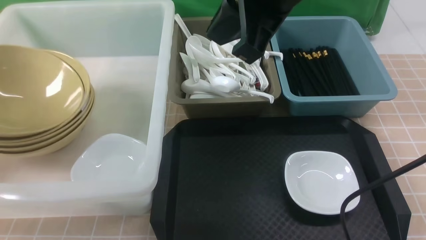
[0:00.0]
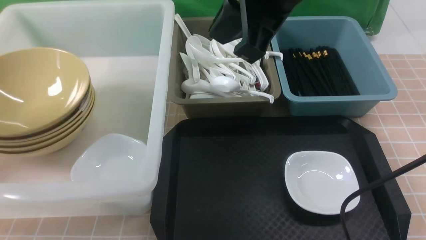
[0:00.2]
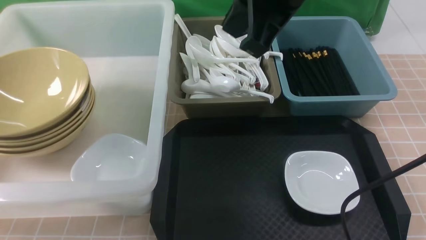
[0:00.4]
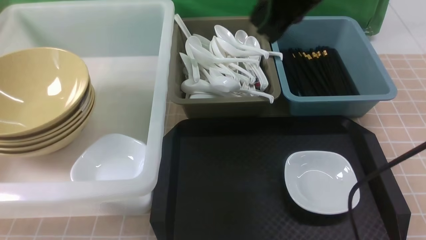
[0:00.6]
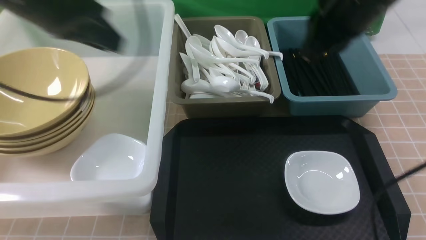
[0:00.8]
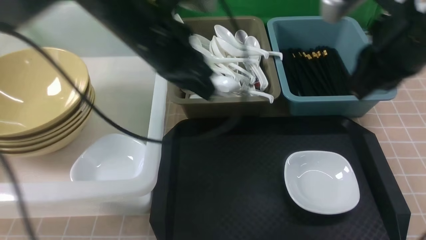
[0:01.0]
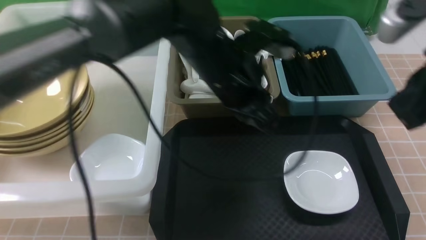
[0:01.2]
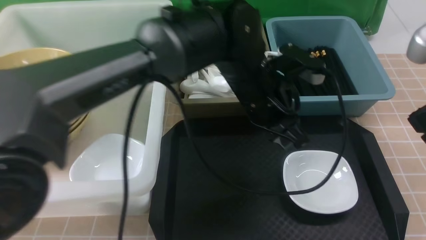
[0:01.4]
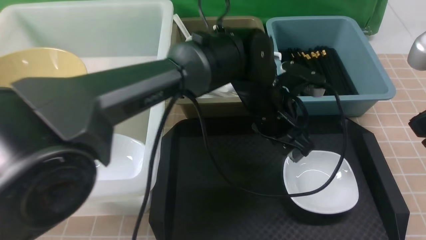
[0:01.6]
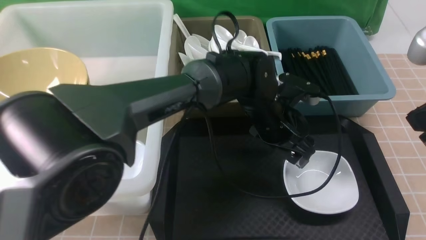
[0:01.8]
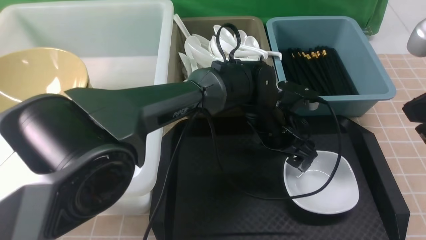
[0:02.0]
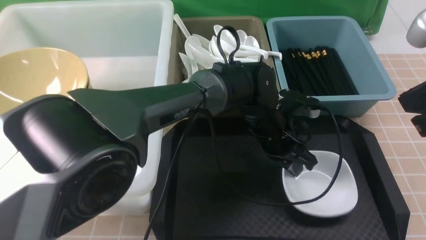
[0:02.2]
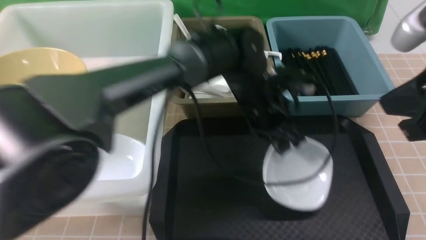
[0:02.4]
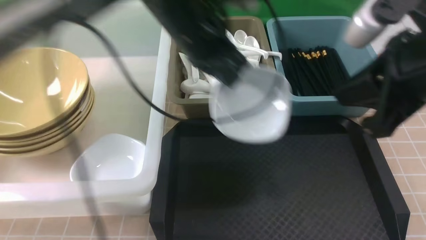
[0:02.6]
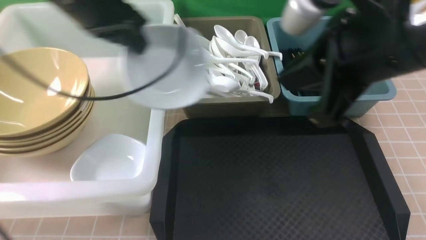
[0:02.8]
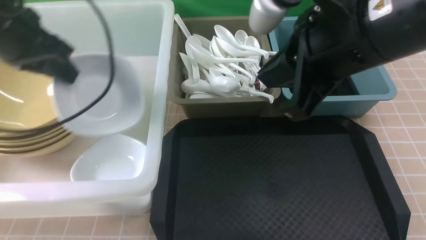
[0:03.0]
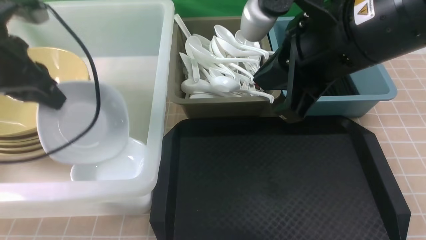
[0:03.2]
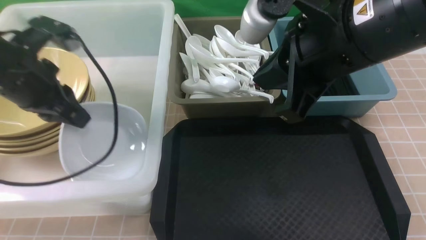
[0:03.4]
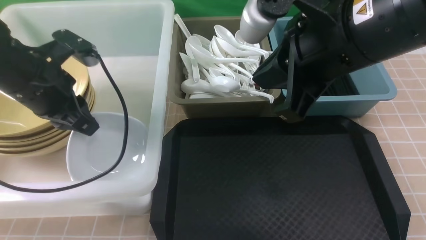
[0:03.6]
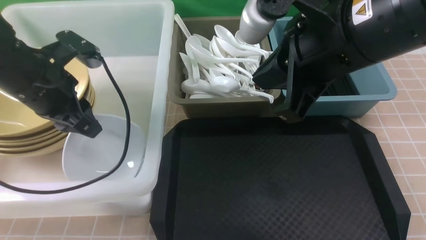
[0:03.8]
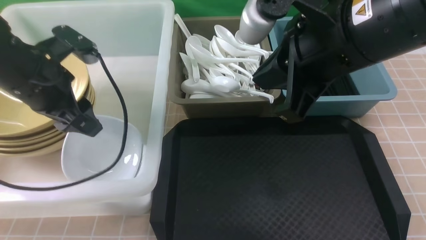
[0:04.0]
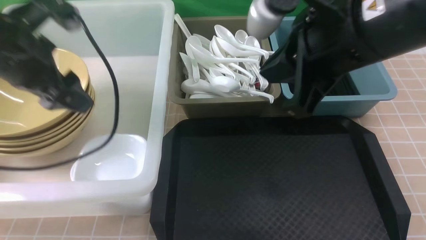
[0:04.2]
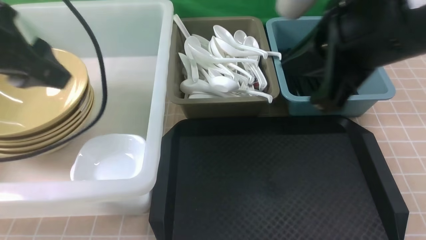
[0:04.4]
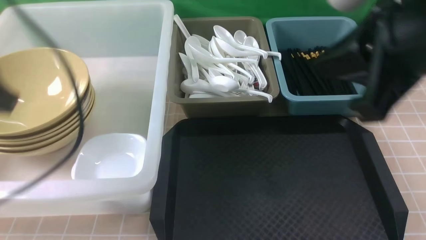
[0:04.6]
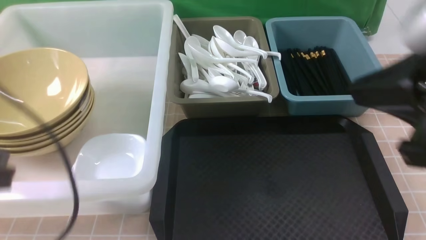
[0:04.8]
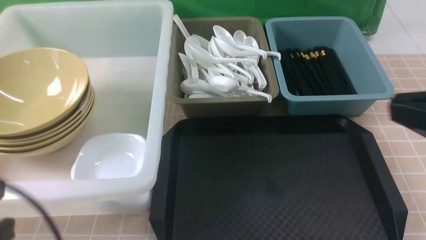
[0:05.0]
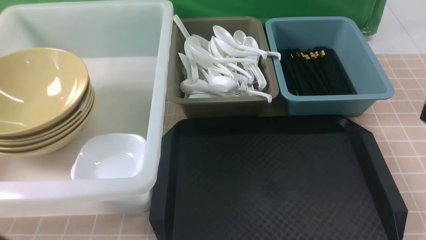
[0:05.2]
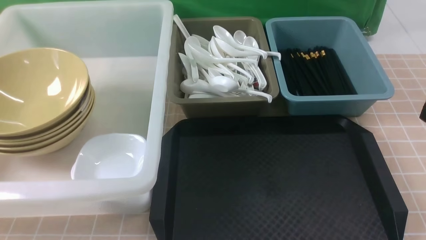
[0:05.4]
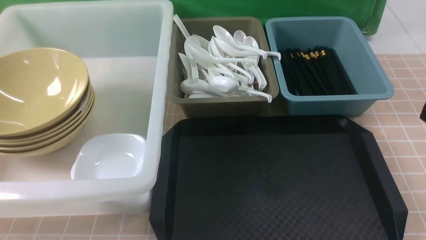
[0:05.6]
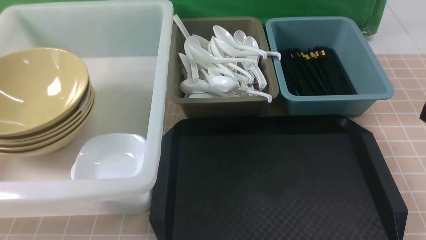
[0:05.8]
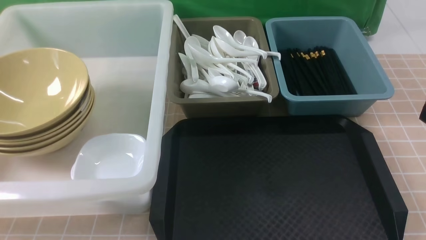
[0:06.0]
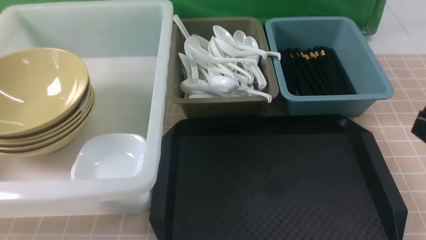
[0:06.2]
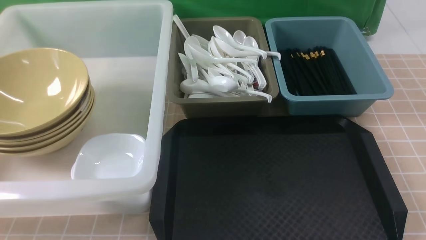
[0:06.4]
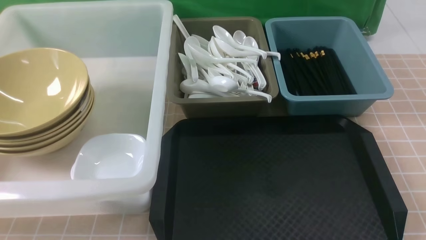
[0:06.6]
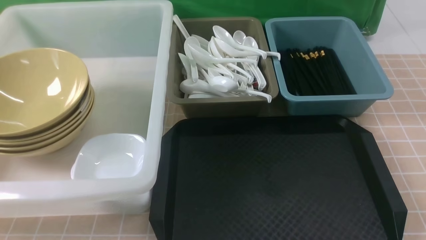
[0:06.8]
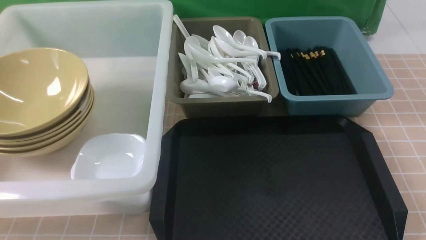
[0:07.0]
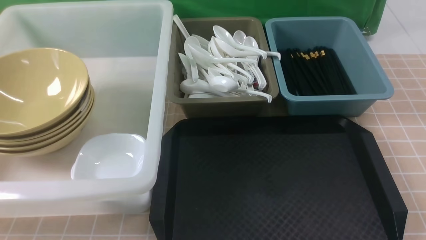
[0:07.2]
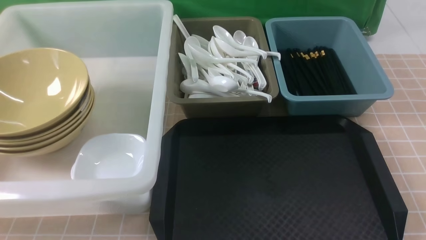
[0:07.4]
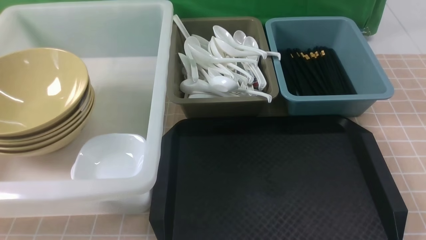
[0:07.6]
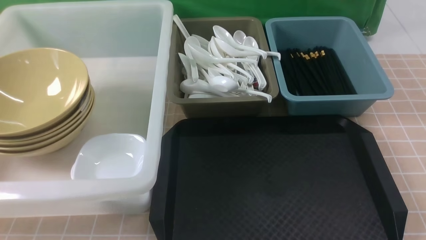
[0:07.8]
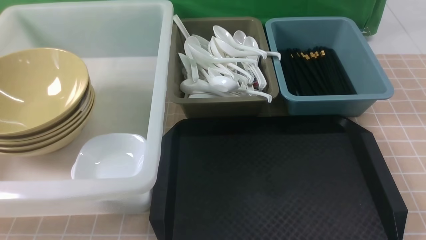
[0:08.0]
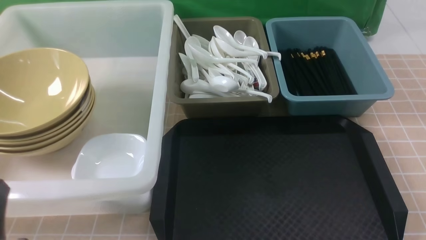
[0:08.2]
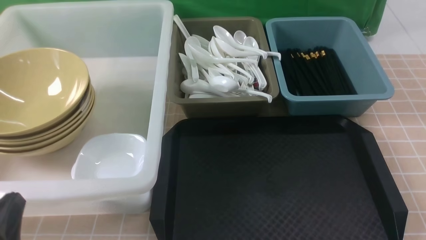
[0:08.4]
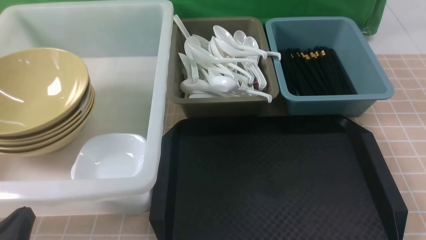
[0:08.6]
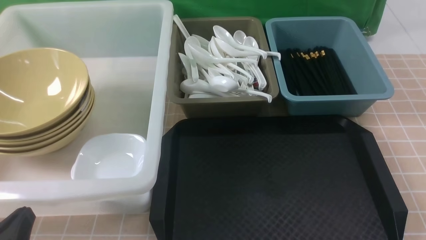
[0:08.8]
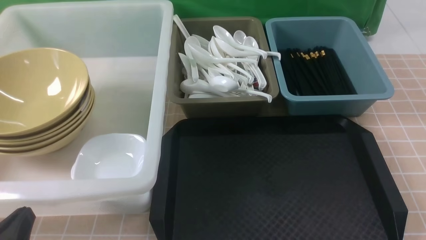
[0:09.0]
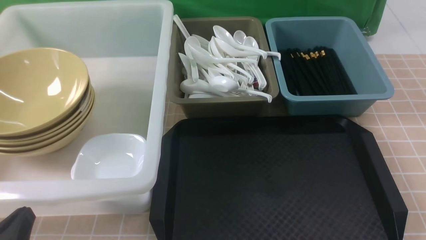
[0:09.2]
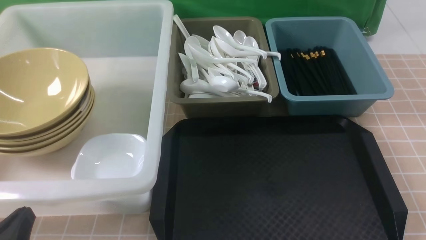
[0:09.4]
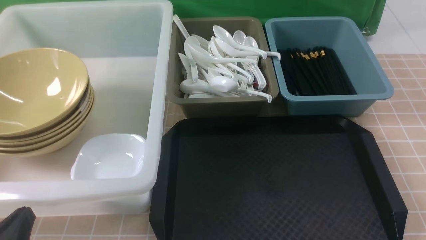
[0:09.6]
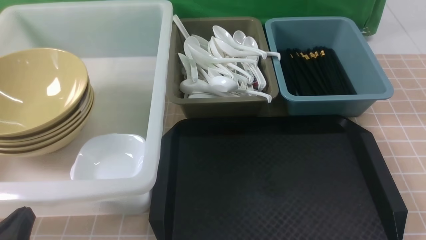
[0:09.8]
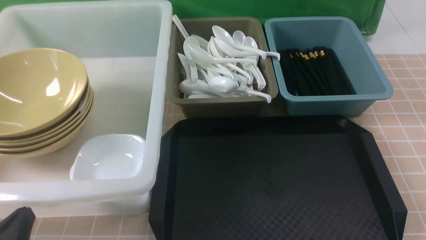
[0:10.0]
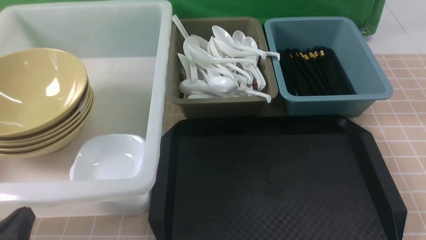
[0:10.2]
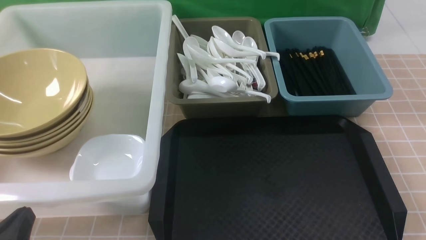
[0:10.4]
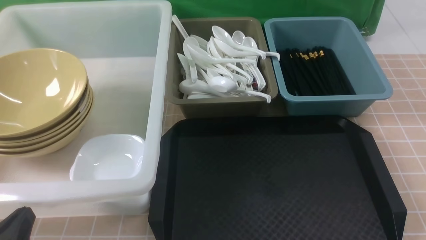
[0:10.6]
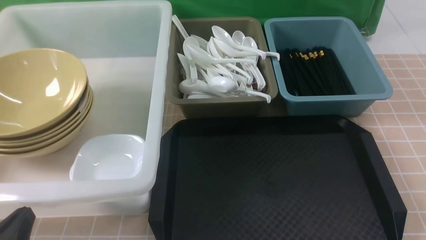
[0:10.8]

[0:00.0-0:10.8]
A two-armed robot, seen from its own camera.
Task of the whole recording: on brown table put chopsticks spoon bowls plates into blue grey white boxes.
Step, 0:00.4 to 0:02.2: use the left arm to grab the plate.
Step, 0:02.4 to 0:04.2: use the left arm to put the plate into the large storage box on the left.
0:00.0 to 0:01.6: The left gripper travels to the right by roughly 50 cm, and closes and opens again. The right gripper moves to the right, backward and downward, approximately 20 cm.
0:01.6 to 0:03.0: The left gripper heads to the left and upward, covering about 35 cm, and closes, while the right gripper moves to the left, about 15 cm.
0:03.0 to 0:04.6: The right gripper moves to the right and backward, some 5 cm, while the left gripper shifts approximately 15 cm backward, and opens, then closes again.
0:04.6 to 0:06.2: The right gripper shifts about 15 cm downward, backward and to the right; the left gripper heads backward and downward, covering approximately 20 cm.
0:07.8 to 0:09.2: The left gripper shifts roughly 10 cm downward.
0:09.2 to 0:10.8: The two grippers keep their place.
